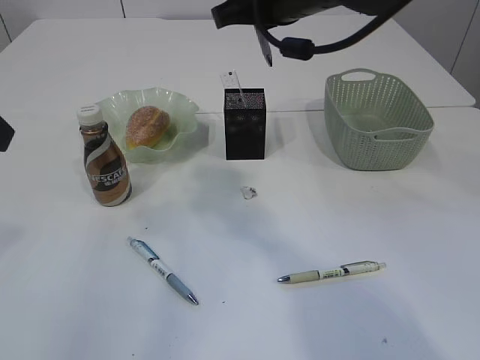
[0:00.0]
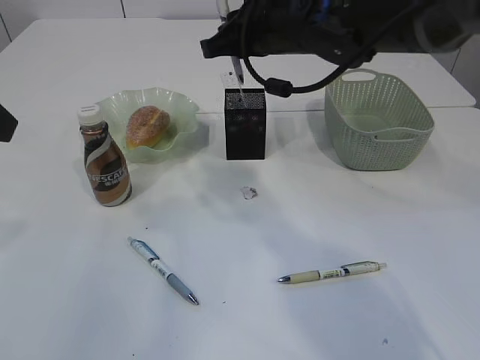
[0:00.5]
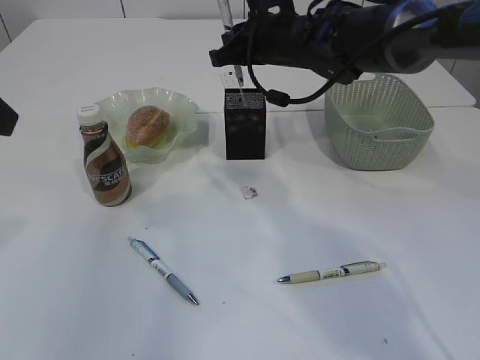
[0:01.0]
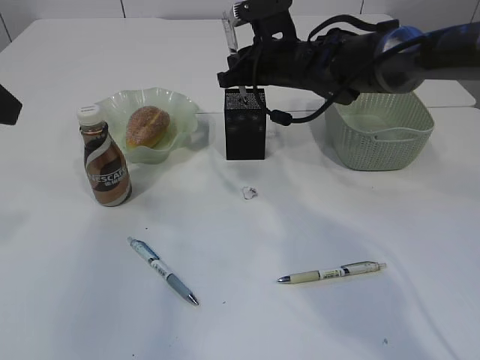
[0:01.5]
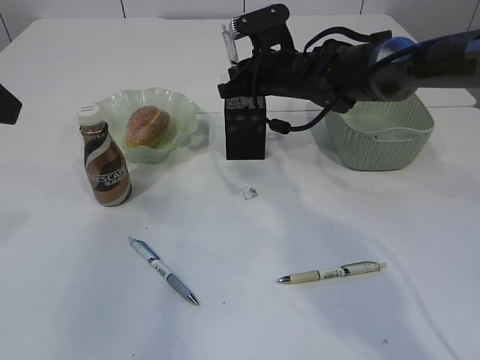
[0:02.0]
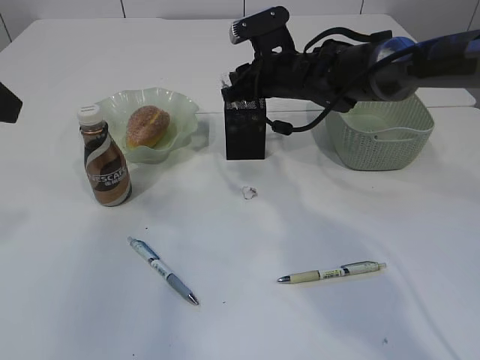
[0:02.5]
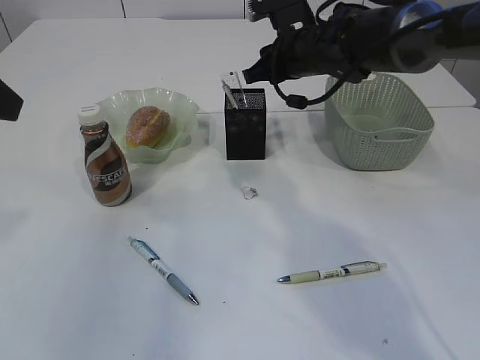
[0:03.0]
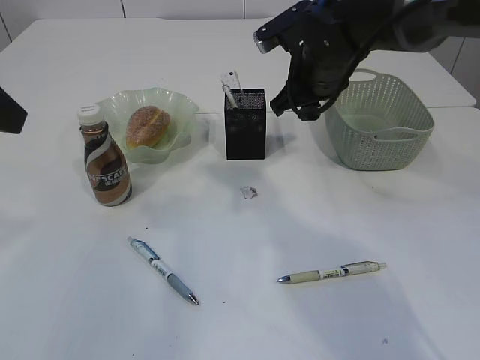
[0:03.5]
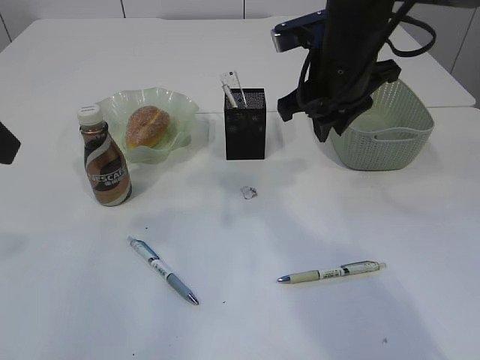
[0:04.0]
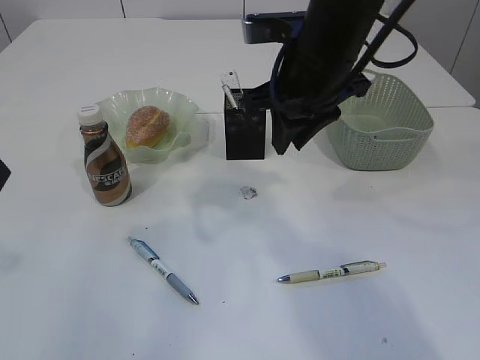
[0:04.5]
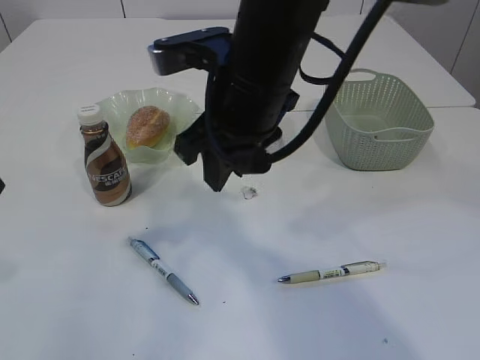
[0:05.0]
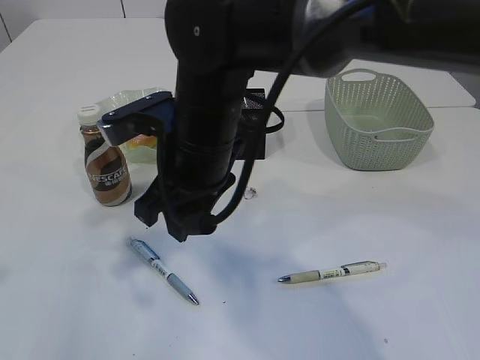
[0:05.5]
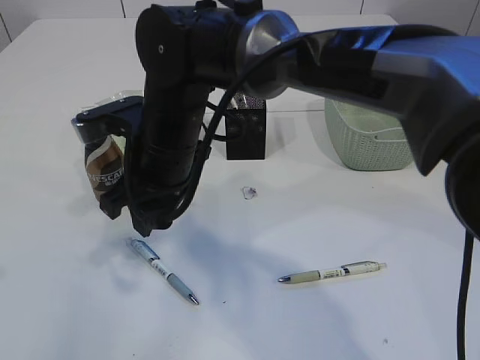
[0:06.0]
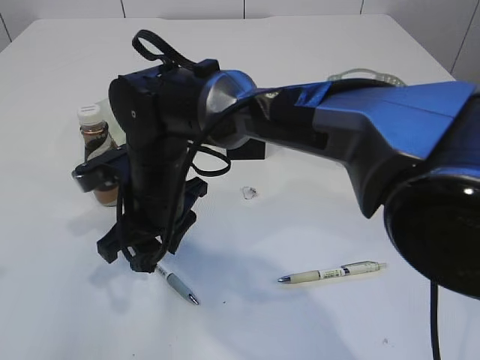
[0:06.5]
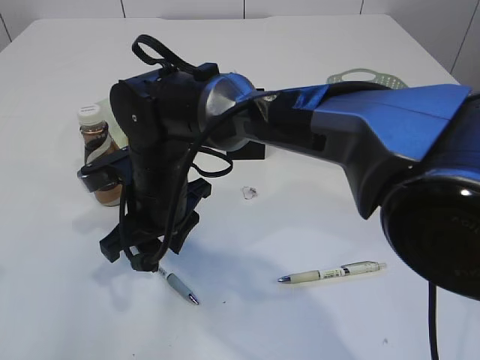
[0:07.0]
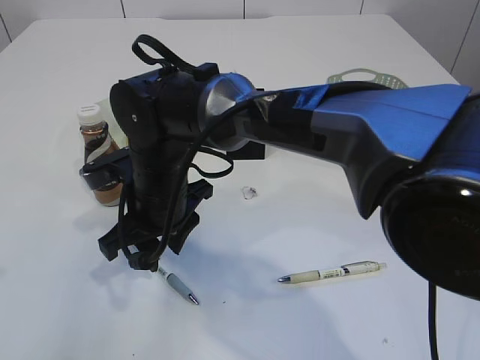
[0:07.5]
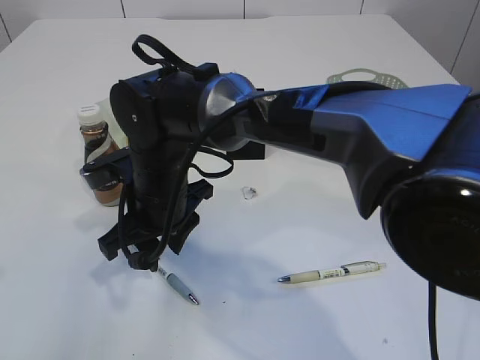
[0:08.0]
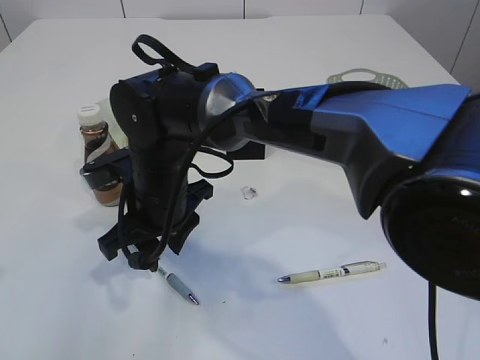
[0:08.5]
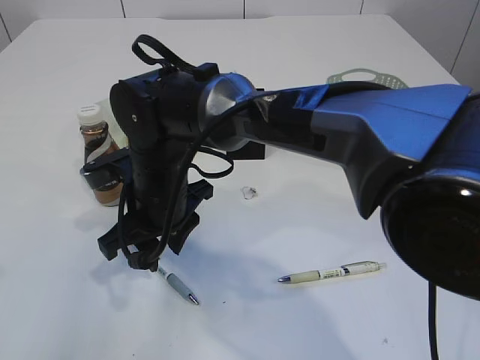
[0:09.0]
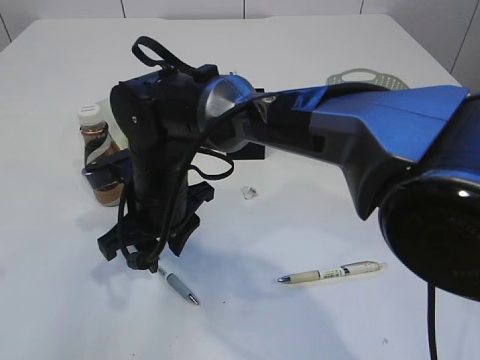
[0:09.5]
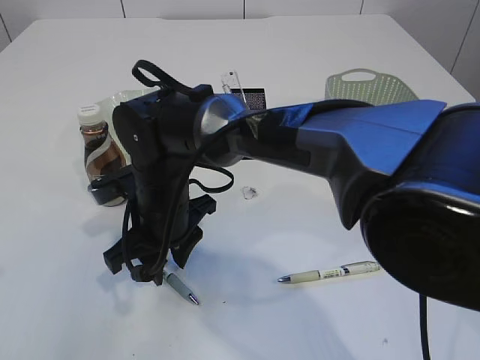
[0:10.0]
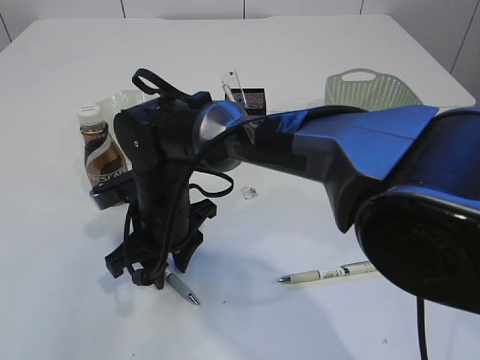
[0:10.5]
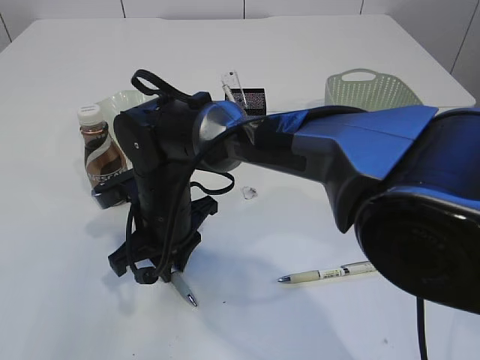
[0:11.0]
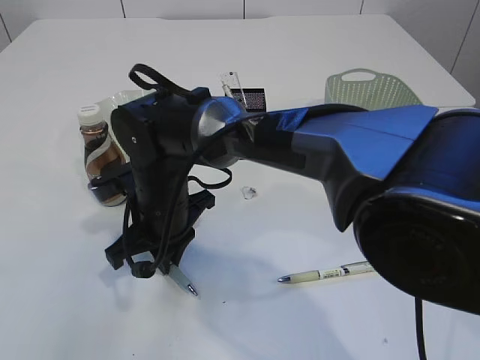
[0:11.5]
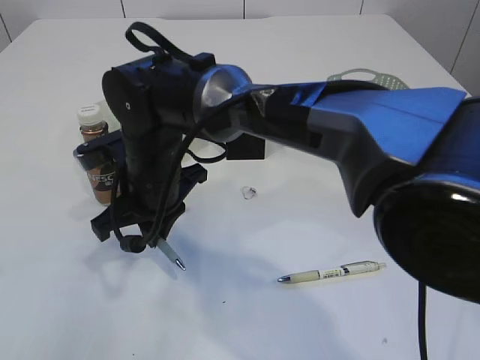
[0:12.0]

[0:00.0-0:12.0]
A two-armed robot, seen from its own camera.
Step, 0:00.0 to 0:03.0: Place the pen into the pen holder.
Step, 0:03.5 to 0:11.5: Pick up the pen with right arm.
0:00.0 to 0:02.0: The right gripper shifts approximately 20 cm downward and forward.
0:02.0 to 0:04.0: The right gripper goes roughly 15 cm backward and upward.
0:04.0 to 0:06.0: The right gripper heads to the left, covering some 20 cm.
0:06.0 to 0:08.0: The right gripper moves downward, about 5 cm.
0:08.0 to 0:10.0: The grippers move only a little.
0:10.0 to 0:12.0: The right gripper closes.

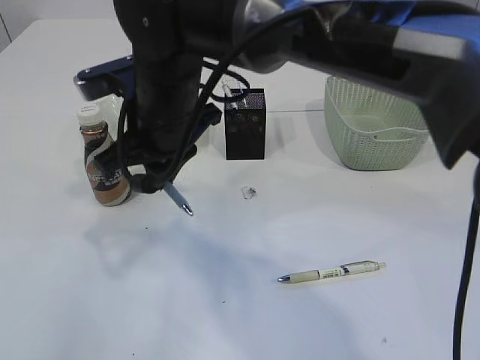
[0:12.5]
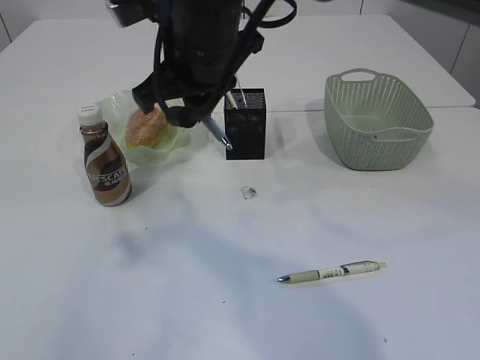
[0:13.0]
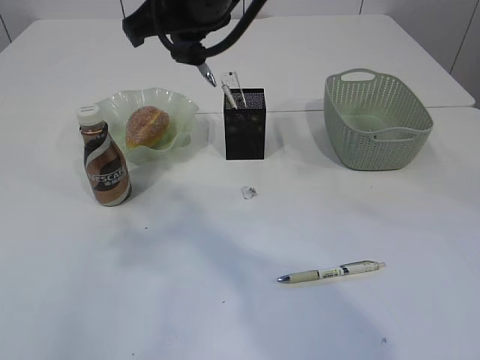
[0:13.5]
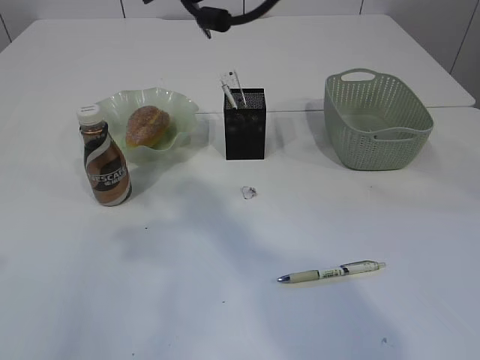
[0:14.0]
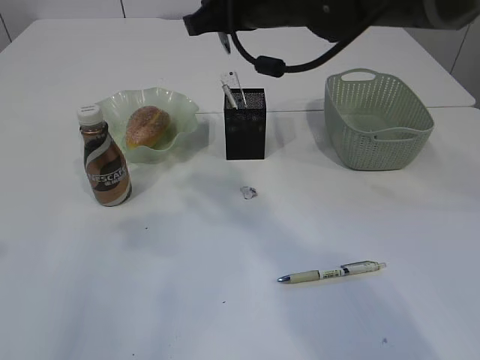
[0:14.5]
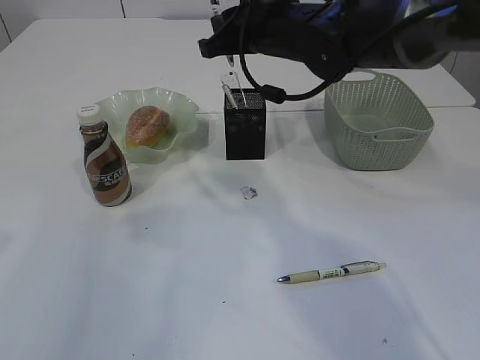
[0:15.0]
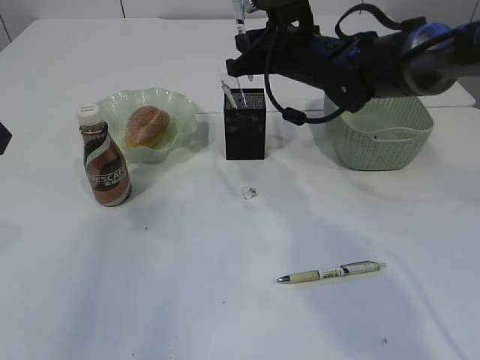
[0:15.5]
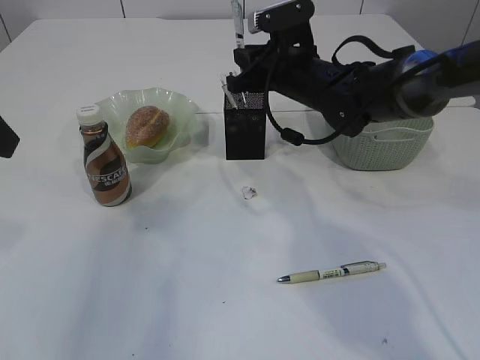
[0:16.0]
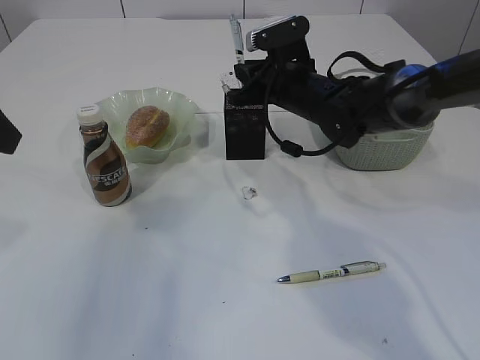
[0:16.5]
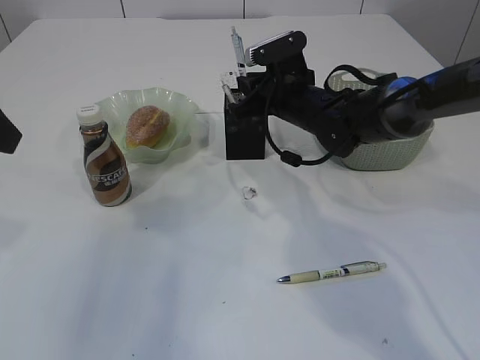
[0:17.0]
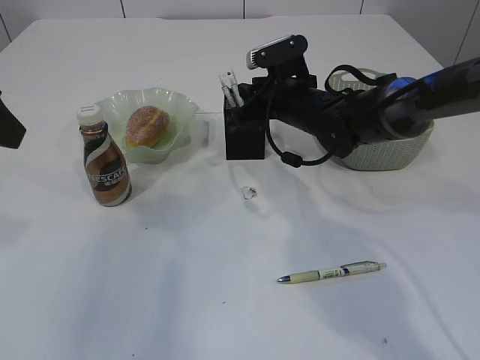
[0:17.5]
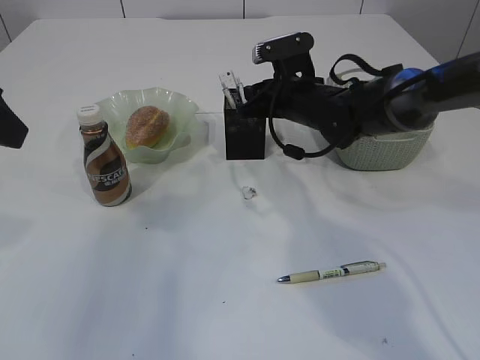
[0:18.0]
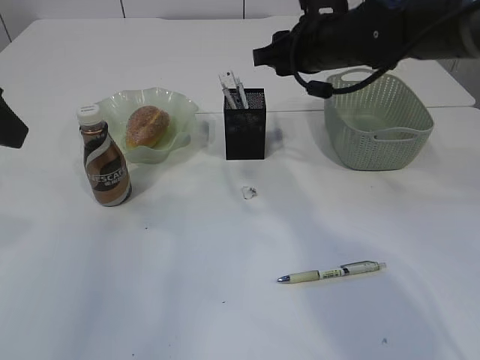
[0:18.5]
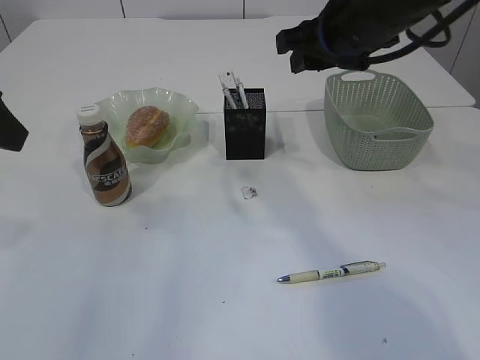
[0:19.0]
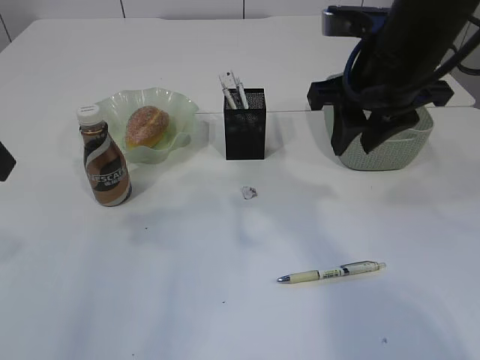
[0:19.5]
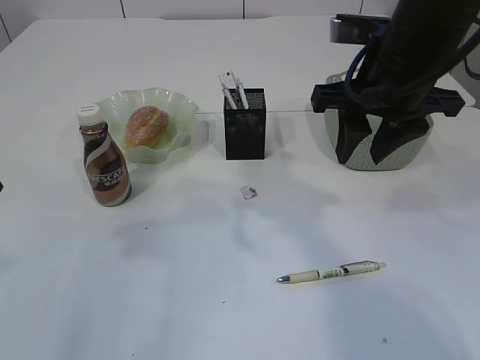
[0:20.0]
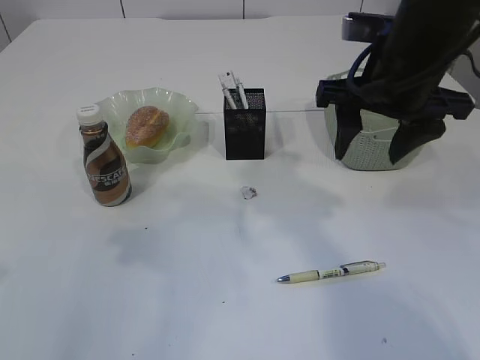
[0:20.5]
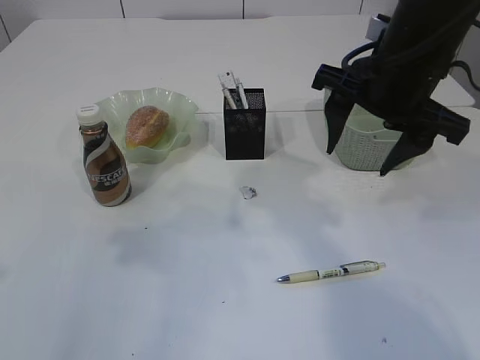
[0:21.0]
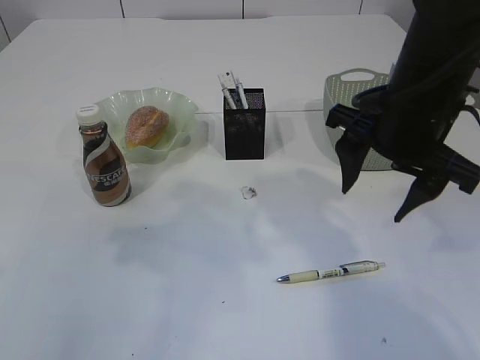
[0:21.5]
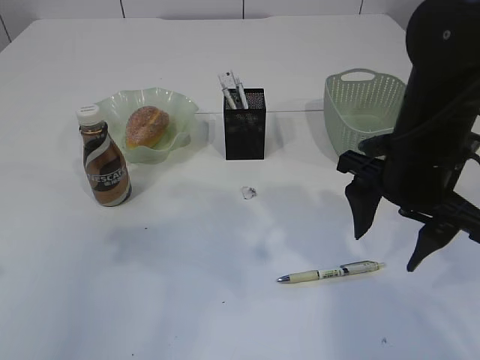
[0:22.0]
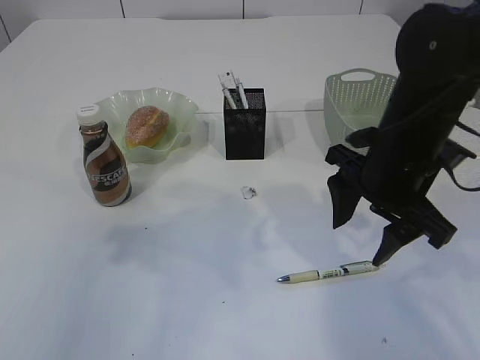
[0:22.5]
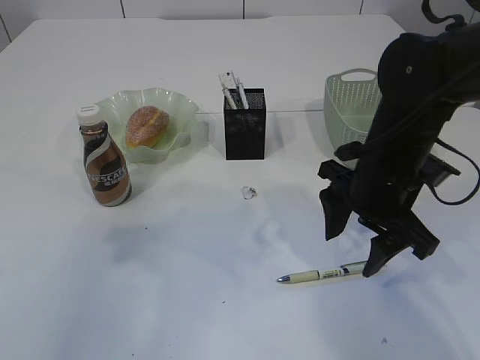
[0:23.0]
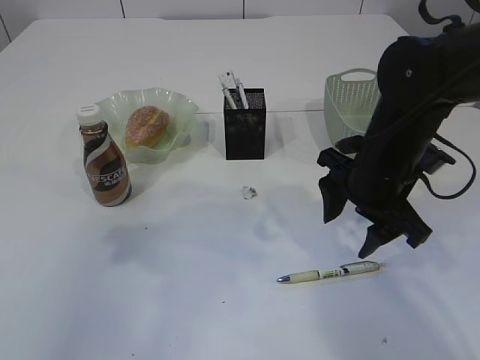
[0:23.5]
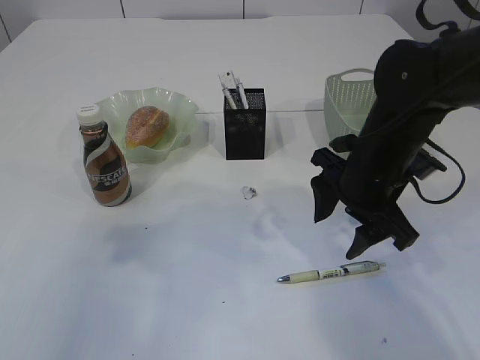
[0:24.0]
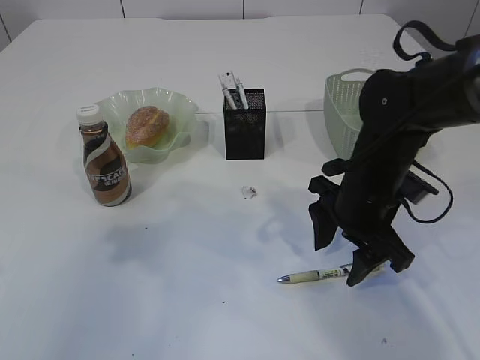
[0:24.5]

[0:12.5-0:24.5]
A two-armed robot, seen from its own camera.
Step, 0:12.5 to 0:18.0: Place the pen into the pen holder.
0:12.5 to 0:14.5: The right gripper heads to the right, upward and forward, covering some 15 cm.
0:14.5 to 0:16.5: The right gripper moves downward, forward and to the right, about 15 cm.
0:16.5 to 0:18.5: The right gripper travels upward by about 5 cm, and opens its fingers.
0:18.5 to 0:20.5: The right gripper travels backward by roughly 10 cm, and opens.
0:20.5 to 0:22.5: The right gripper moves downward, approximately 10 cm.
0:22.5 to 0:24.5: The right gripper travels downward by roughly 5 cm.

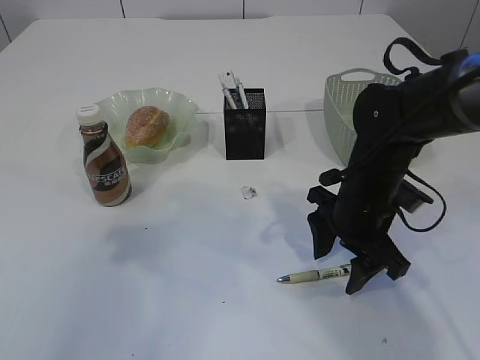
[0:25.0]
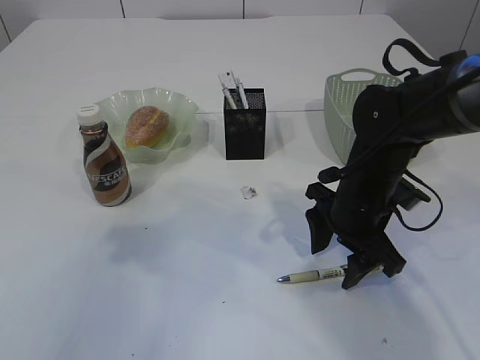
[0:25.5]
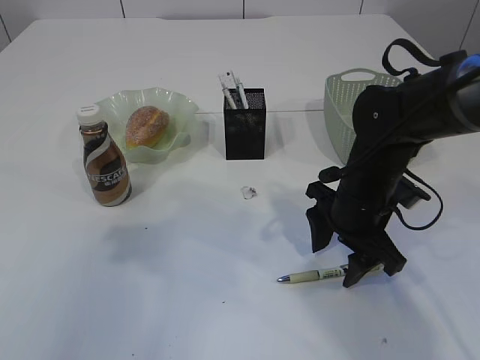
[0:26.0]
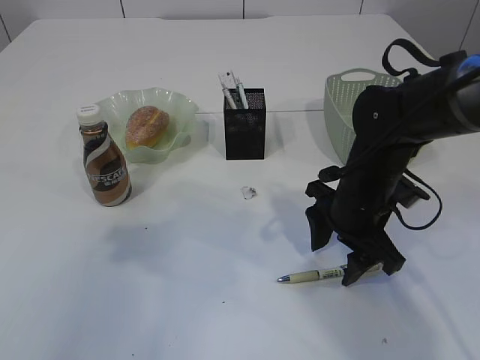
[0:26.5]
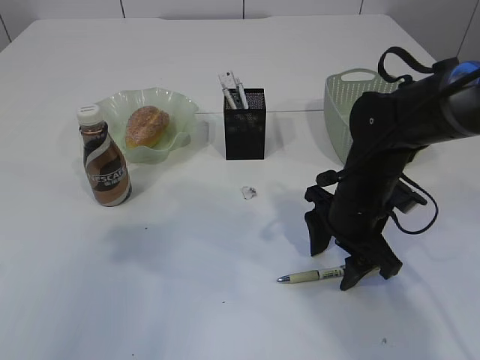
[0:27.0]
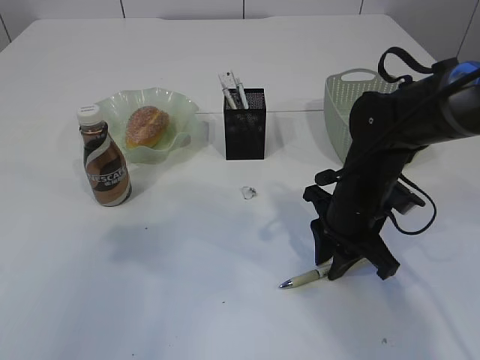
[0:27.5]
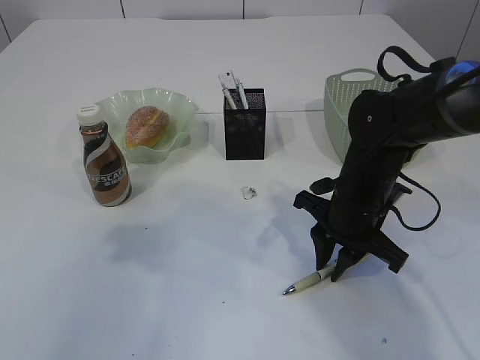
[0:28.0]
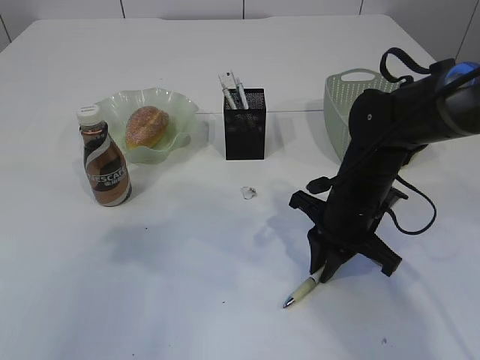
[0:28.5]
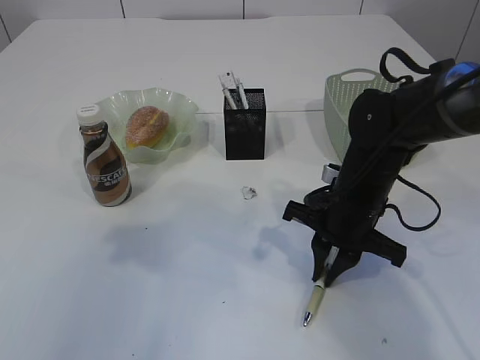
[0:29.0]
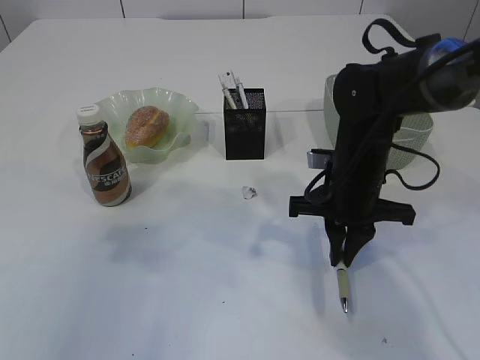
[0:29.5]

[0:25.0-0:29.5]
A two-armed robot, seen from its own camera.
0:25.0 to 0:27.0: The two grippers keep their place.
0:27.0 to 0:29.5: The right gripper closes.
